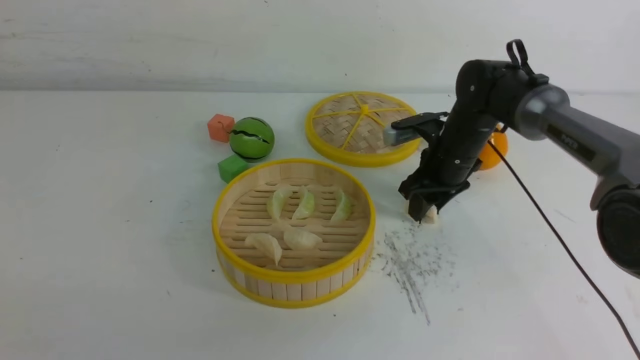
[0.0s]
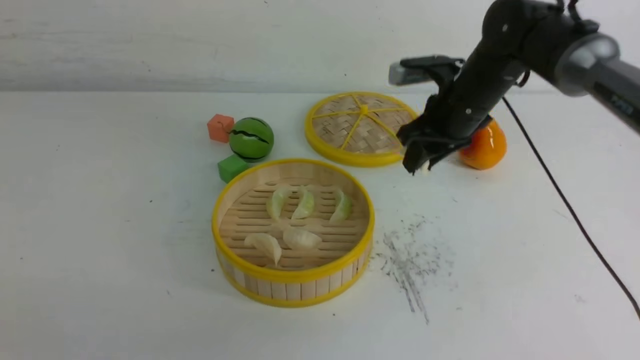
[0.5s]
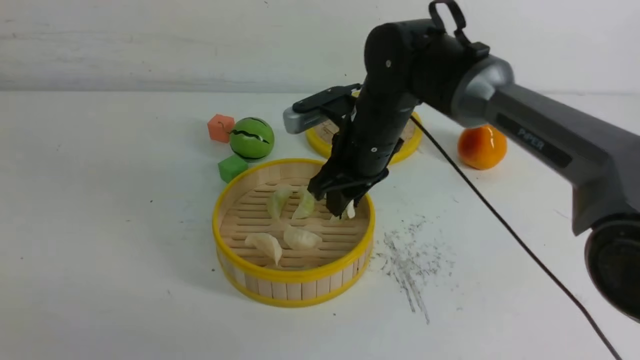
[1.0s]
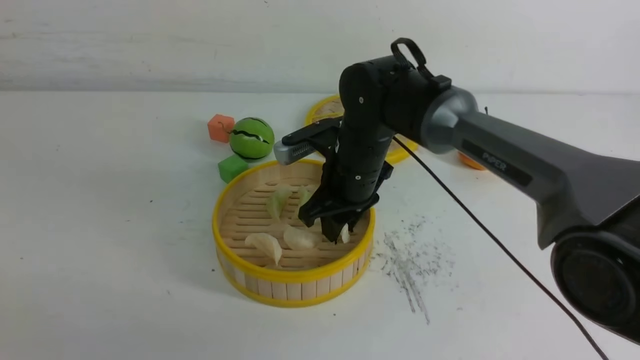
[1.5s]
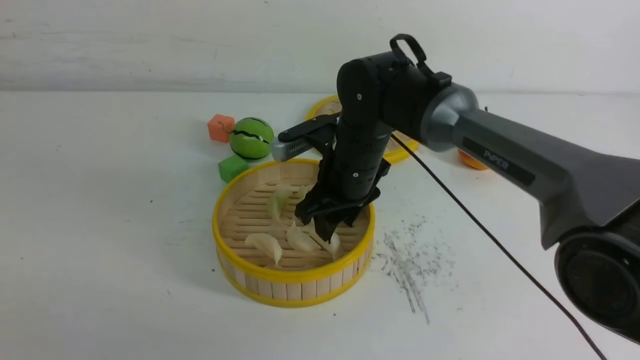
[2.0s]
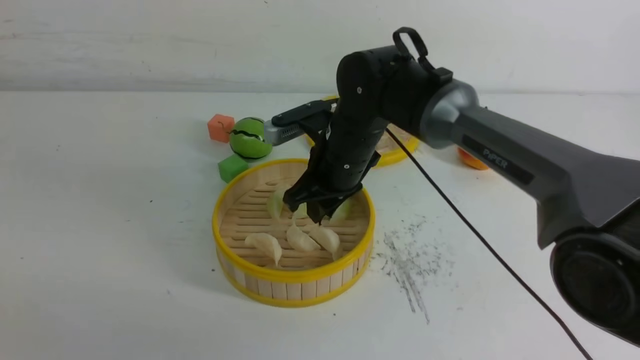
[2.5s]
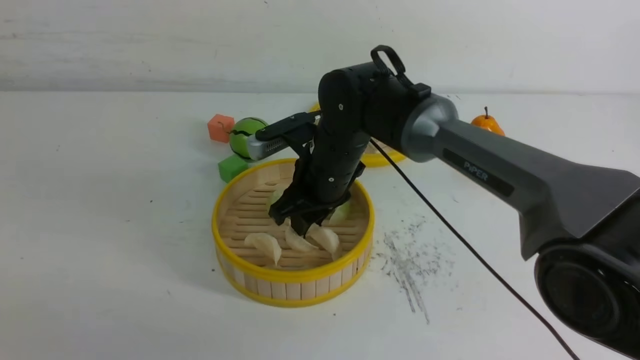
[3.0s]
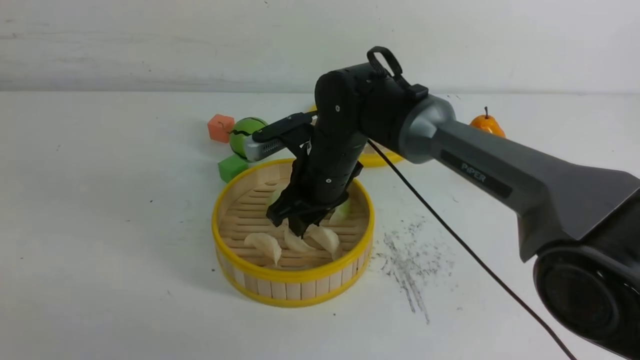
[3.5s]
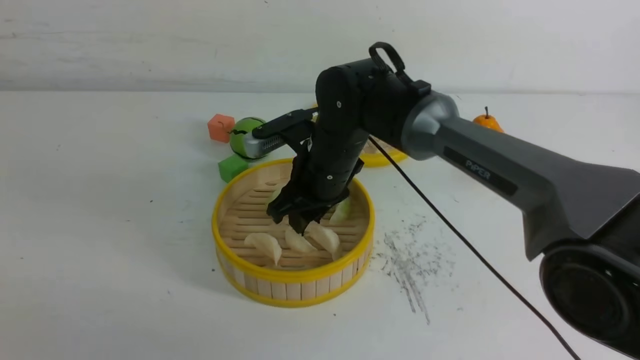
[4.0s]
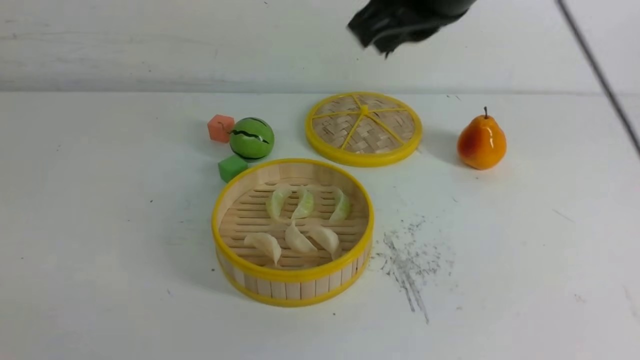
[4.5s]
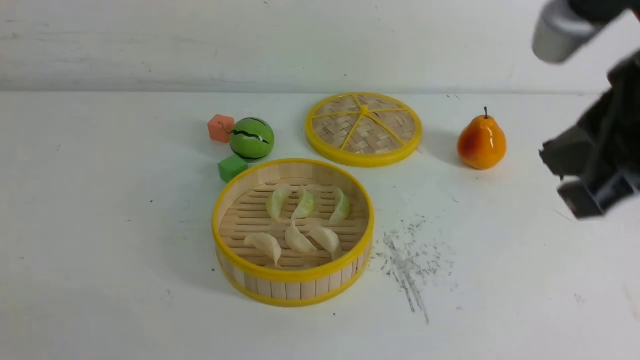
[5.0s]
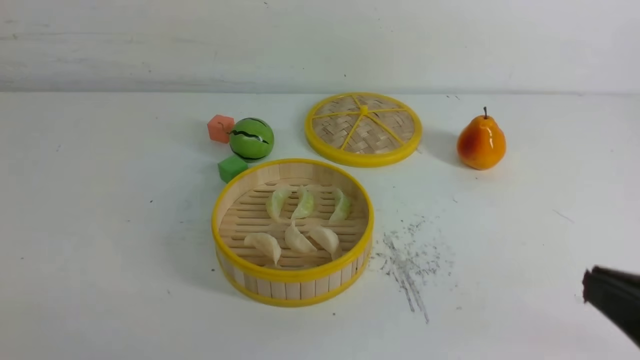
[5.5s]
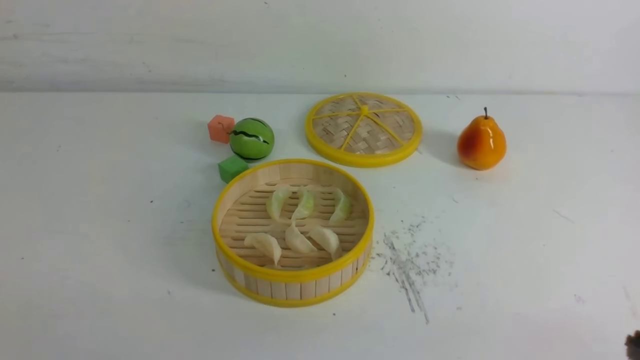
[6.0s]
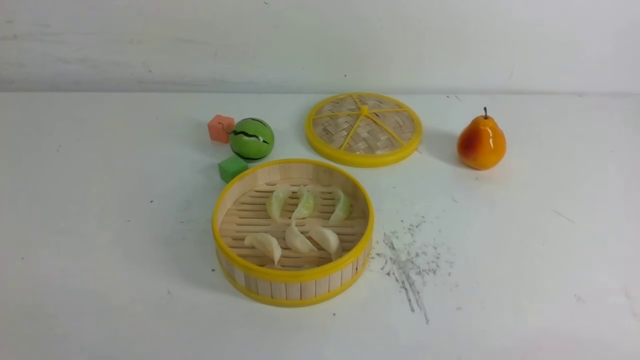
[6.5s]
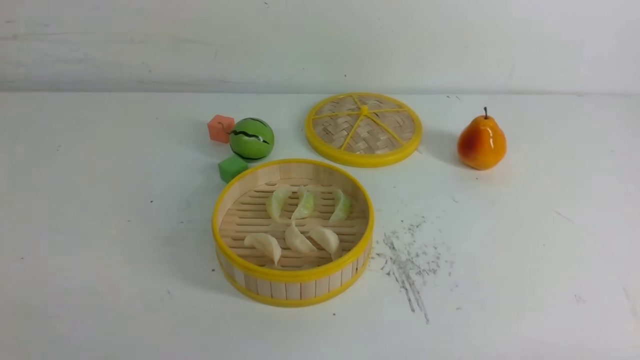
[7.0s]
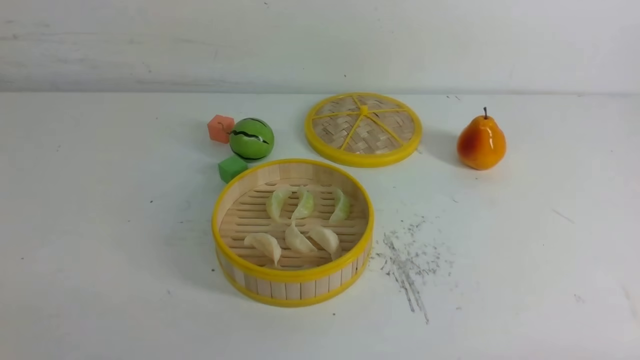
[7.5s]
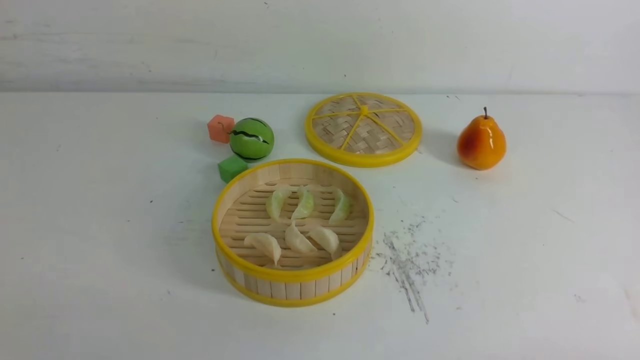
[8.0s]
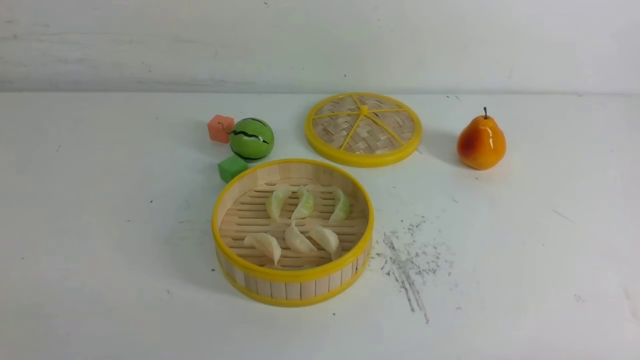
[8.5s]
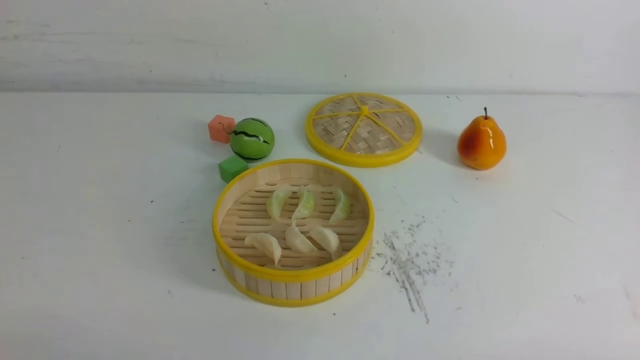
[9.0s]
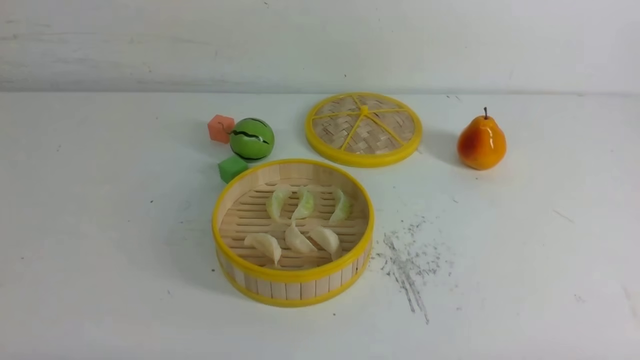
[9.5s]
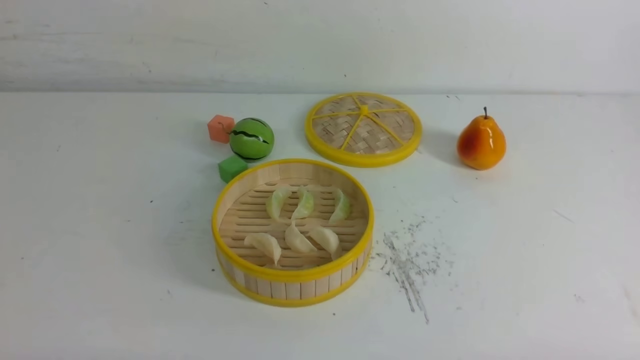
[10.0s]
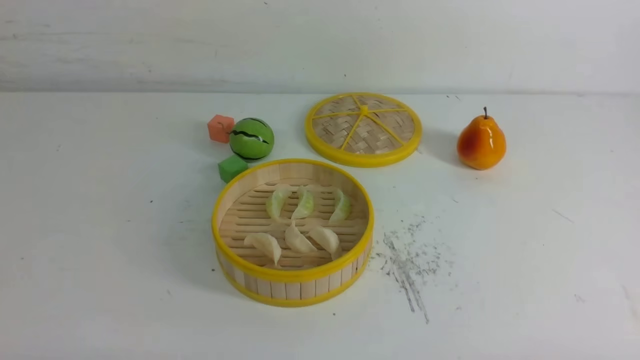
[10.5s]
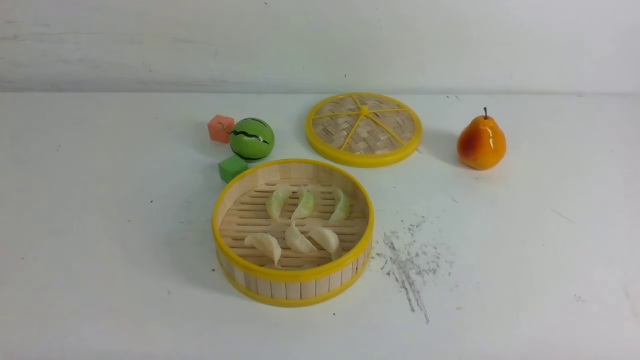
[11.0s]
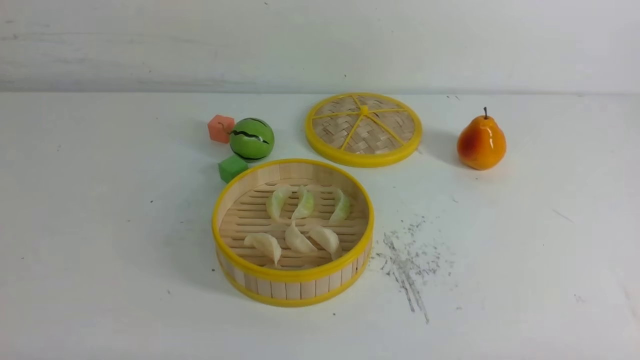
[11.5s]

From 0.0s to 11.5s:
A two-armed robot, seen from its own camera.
Task of the whole recording: put the dumplings into the steamer on the white table.
Step, from 0.5s to 4.0s: use the right arm to put the dumpling into the steamer.
From 0.0s to 2.0s: The right gripper goes some 15 cm to the left and backward.
From 2.0s to 4.0s: The grippers make only small movements.
From 4.0s to 6.0s: The right gripper travels backward and to the right by approximately 40 cm, and closes.
From 9.5s to 11.5s: Neither gripper changes place.

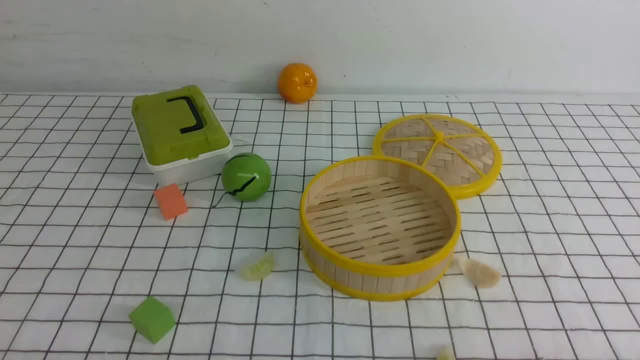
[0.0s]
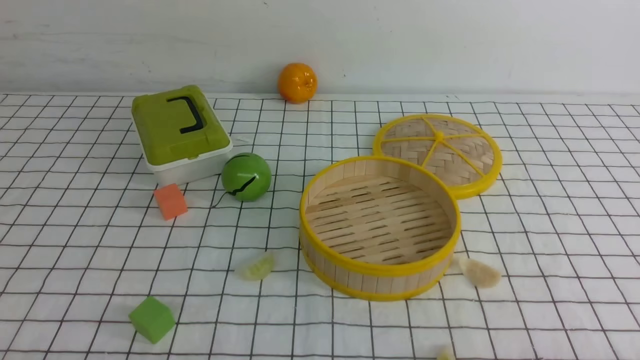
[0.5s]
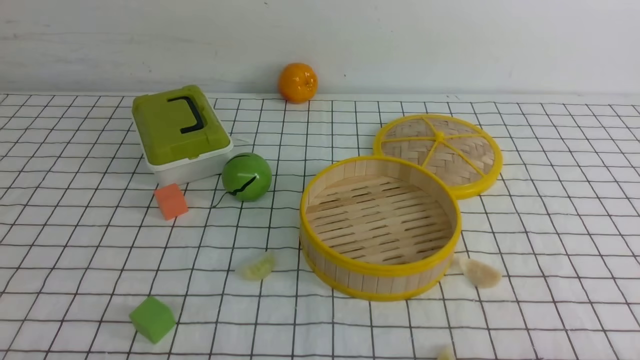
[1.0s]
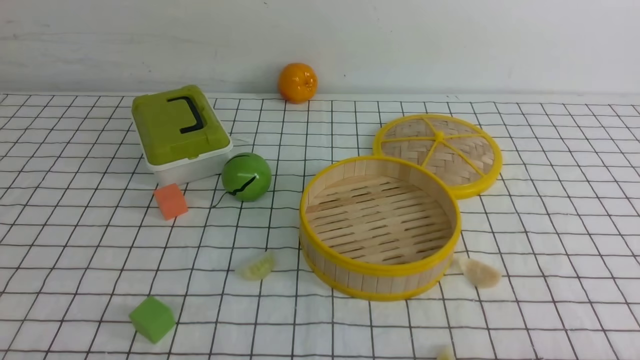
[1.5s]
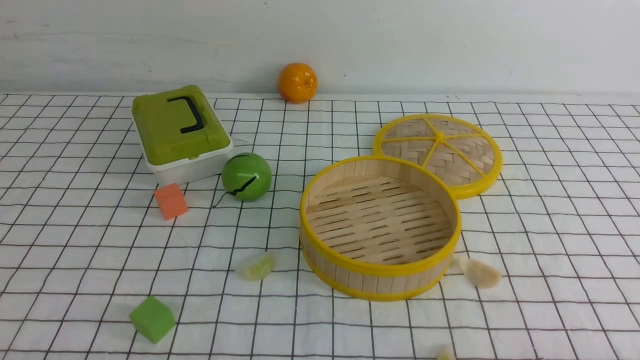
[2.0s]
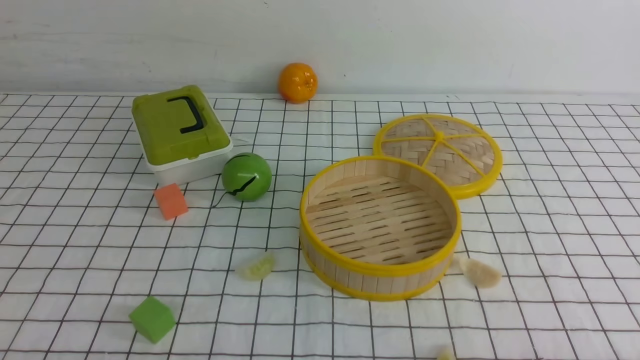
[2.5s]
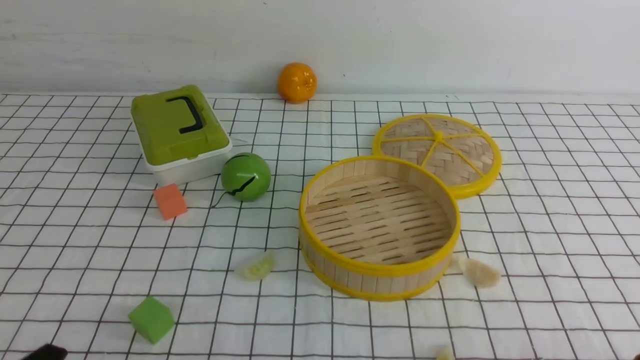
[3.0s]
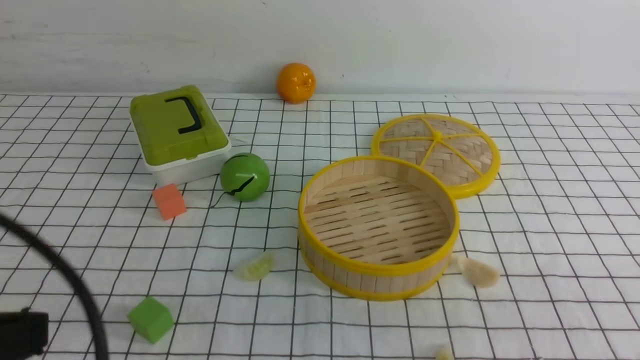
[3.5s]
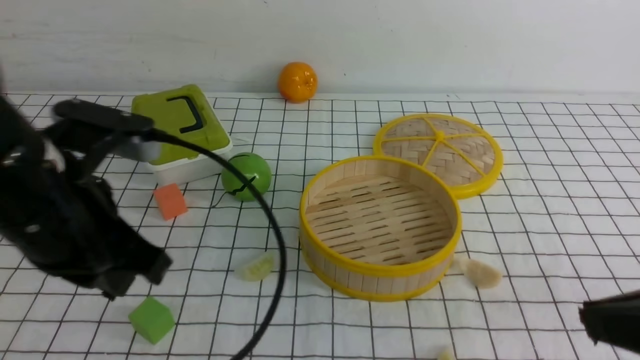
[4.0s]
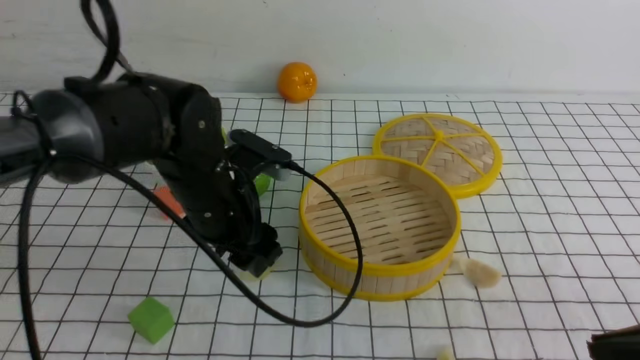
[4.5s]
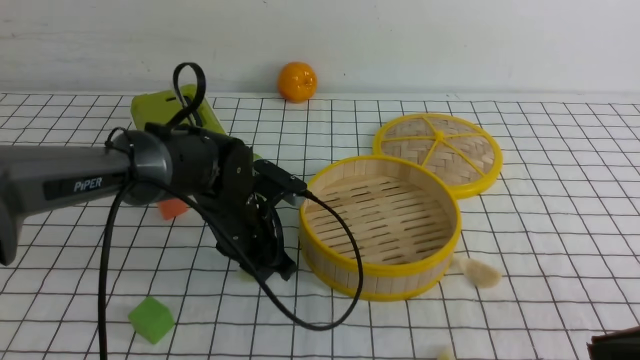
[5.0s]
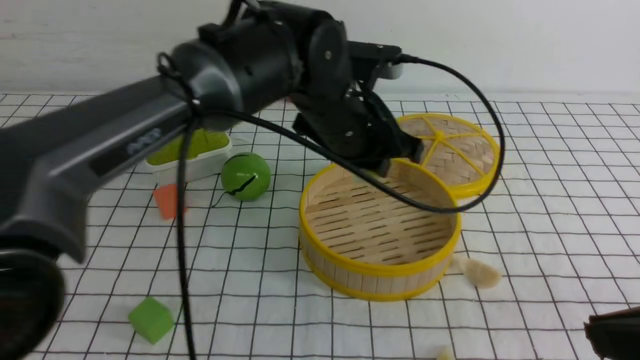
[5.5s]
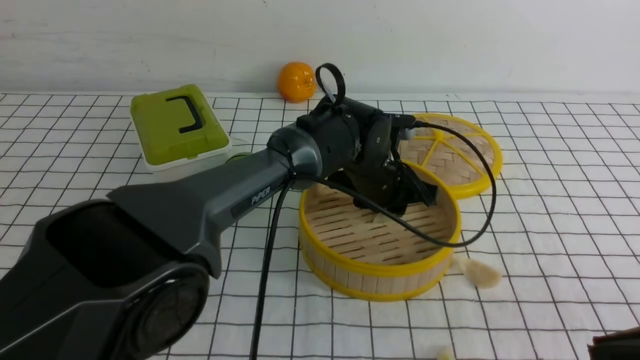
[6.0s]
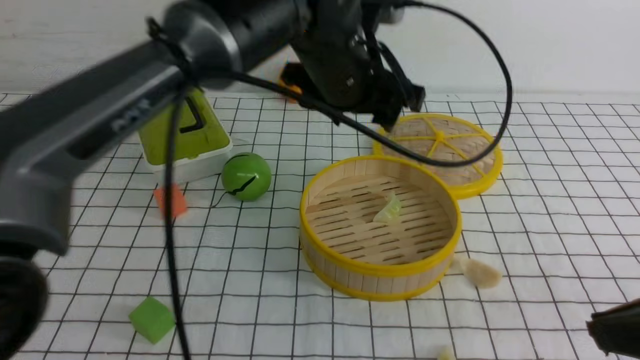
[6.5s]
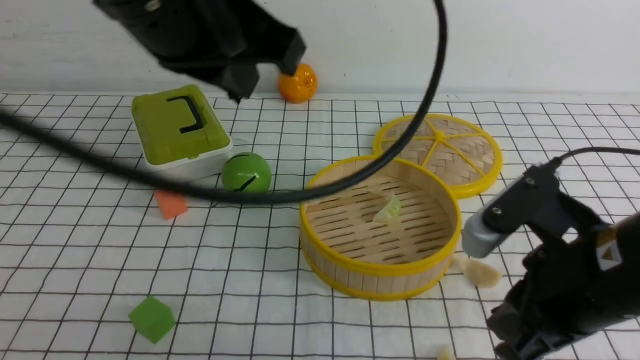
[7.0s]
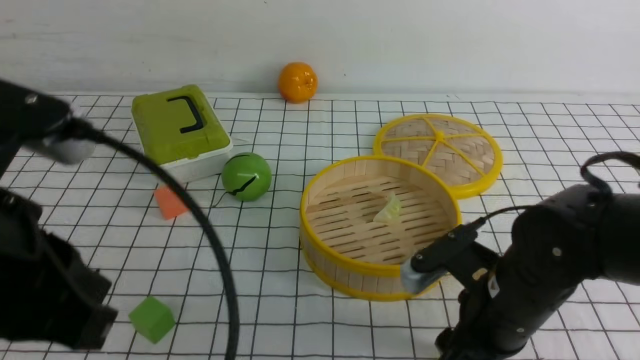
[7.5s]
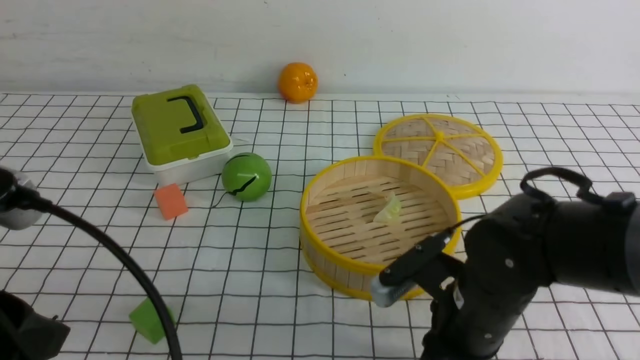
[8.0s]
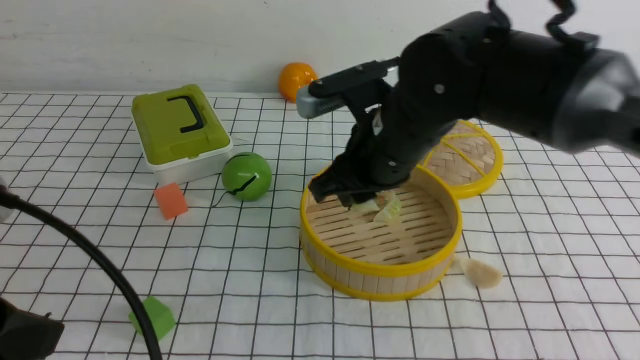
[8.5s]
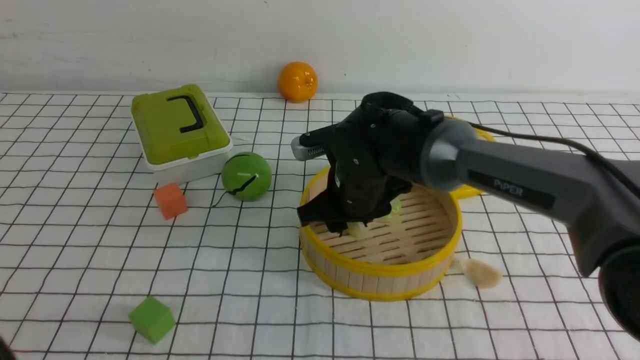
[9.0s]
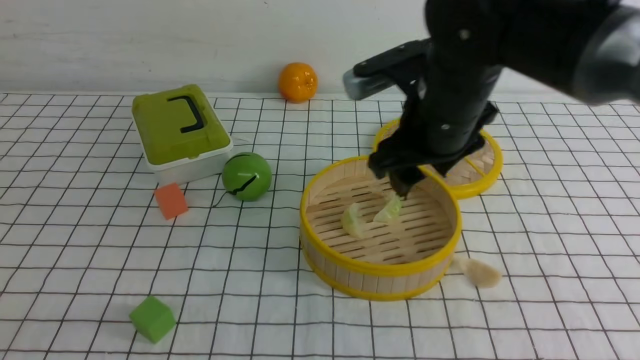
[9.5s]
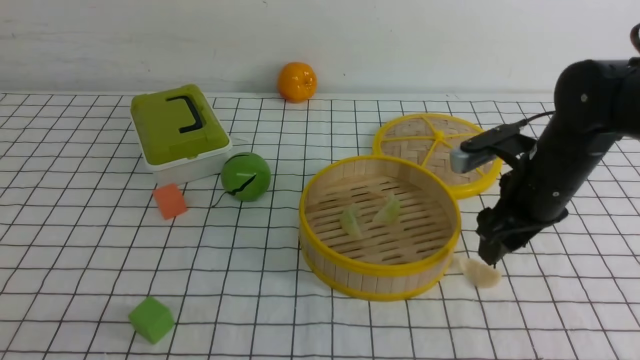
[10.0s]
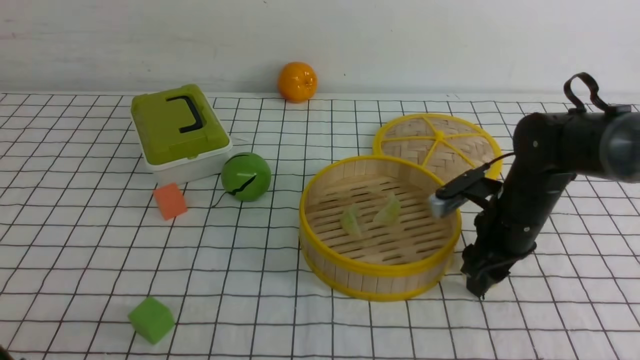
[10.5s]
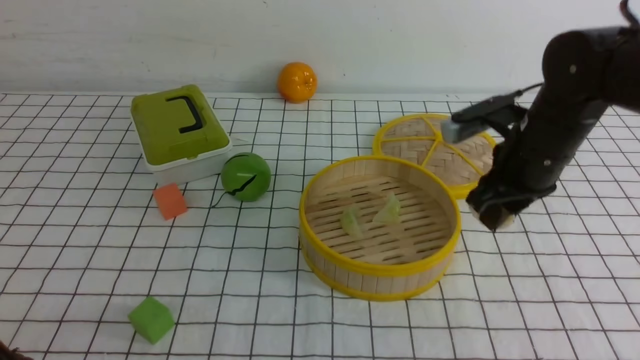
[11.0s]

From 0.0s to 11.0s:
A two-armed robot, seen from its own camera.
Task of the whole recording: put the dumplings into the steamer on the table with the white tablecloth.
Step, from 0.0s to 5.0s: use the left arm to grab a dumpling.
Step, from 5.5s to 6.0s: use the left arm to put the dumpling into the steamer.
Step, from 6.5s to 8.0s: use the right arm to grab a dumpling.
Step, from 8.5s to 9.0s: use the right arm to put the dumpling into the steamer.
Step, from 9.5s to 10.5s: use the right arm to grab a dumpling.
From 0.0s to 2.0s: Both grippers stay put.
From 2.0s to 3.5s: The grippers both shift upward by roughly 15 cm. The right gripper closes its fingers. Meanwhile the left gripper closes its fingers.
From 3.5s to 5.5s: The left gripper shifts some 40 cm forward and to the right, and opens its fingers; the right gripper ends up roughly 5 cm from where it was.
From 5.5s to 7.5s: The right gripper shifts some 25 cm forward, to the left and downward, and opens and closes again; the left gripper heads backward and to the left, covering roughly 40 cm, and closes its fingers.
From 7.5s to 9.0s: The right gripper travels forward and upward by roughly 10 cm, and opens its fingers, while the left gripper goes roughly 5 cm backward.
From 9.0s to 11.0s: The right gripper is displaced to the right by about 10 cm, and closes up.
